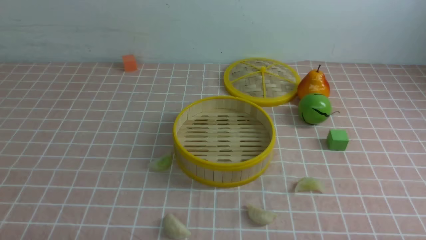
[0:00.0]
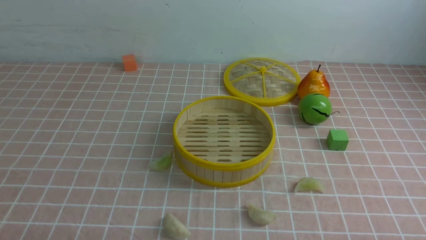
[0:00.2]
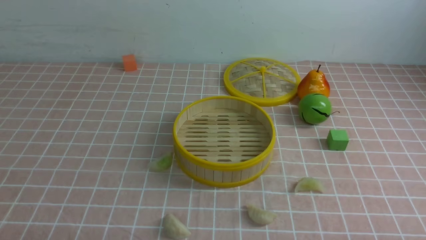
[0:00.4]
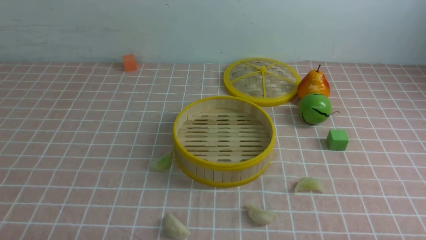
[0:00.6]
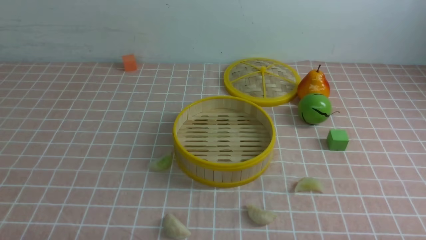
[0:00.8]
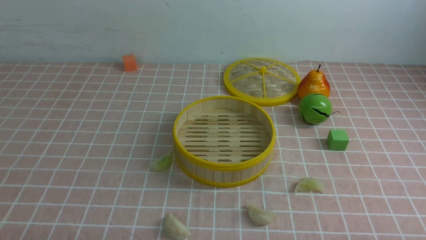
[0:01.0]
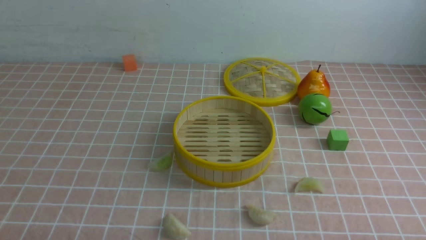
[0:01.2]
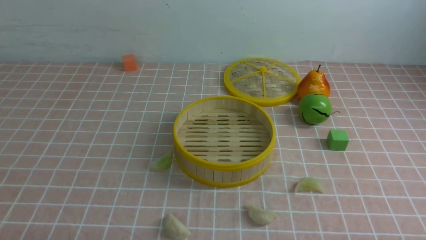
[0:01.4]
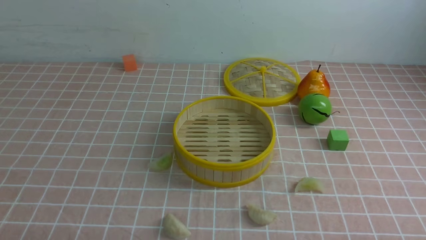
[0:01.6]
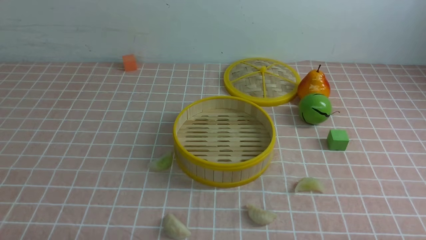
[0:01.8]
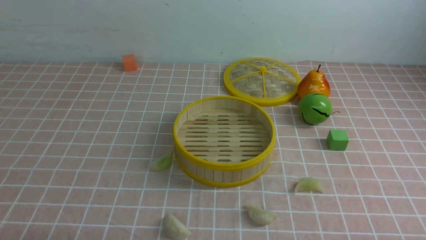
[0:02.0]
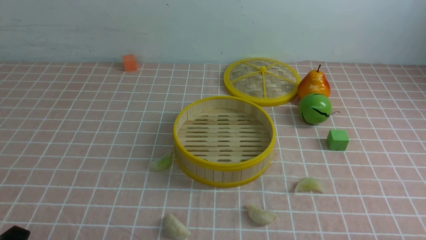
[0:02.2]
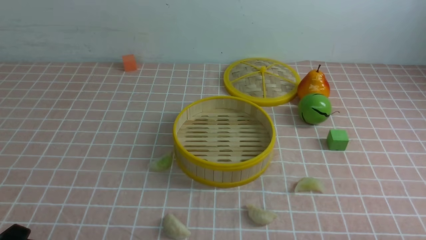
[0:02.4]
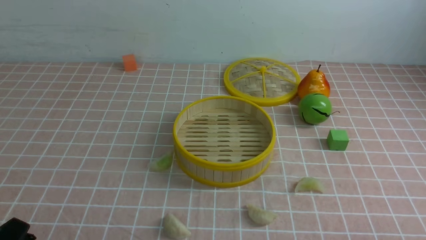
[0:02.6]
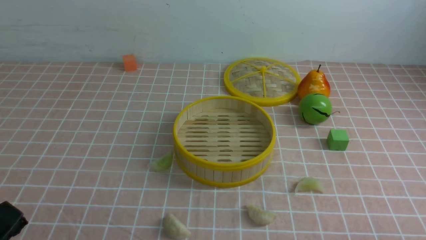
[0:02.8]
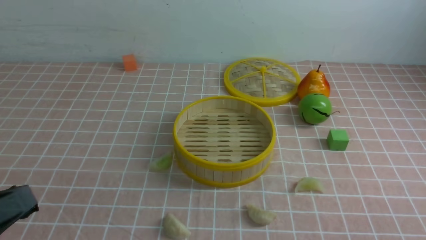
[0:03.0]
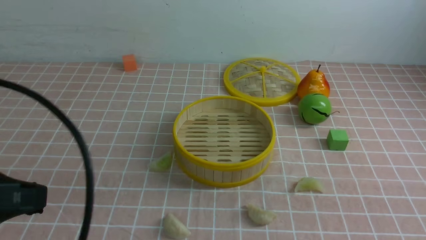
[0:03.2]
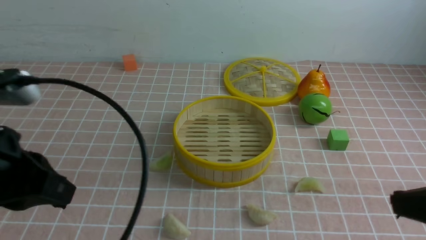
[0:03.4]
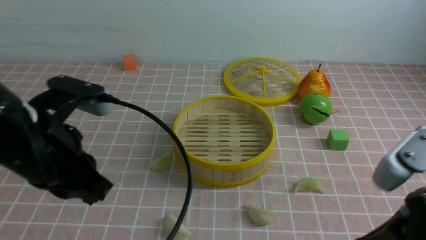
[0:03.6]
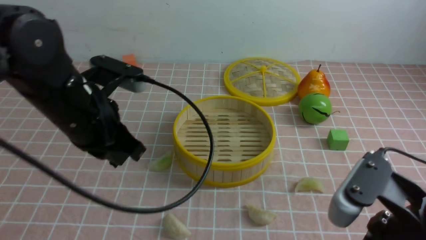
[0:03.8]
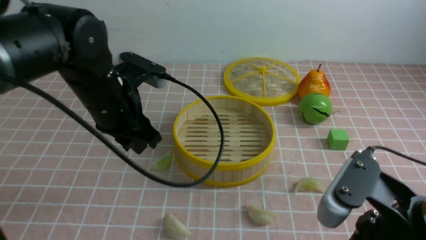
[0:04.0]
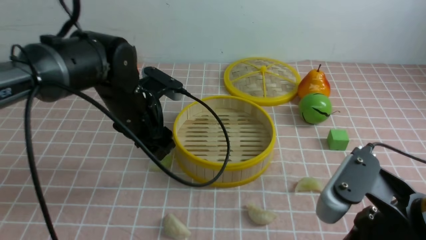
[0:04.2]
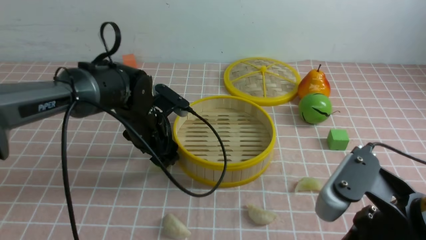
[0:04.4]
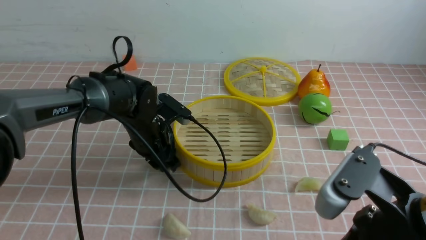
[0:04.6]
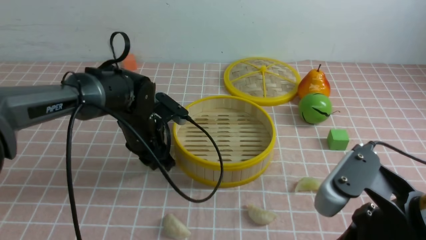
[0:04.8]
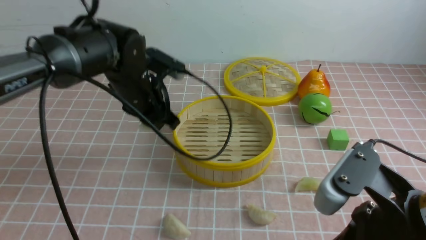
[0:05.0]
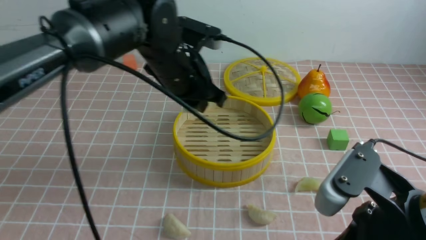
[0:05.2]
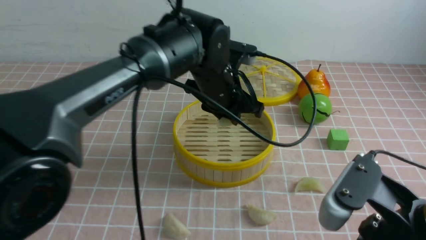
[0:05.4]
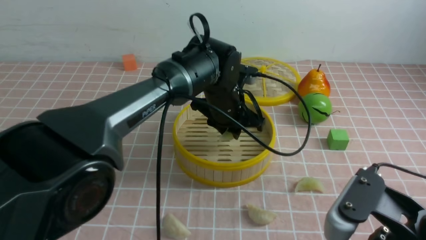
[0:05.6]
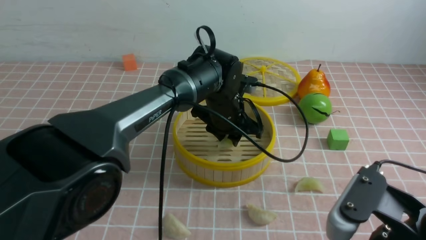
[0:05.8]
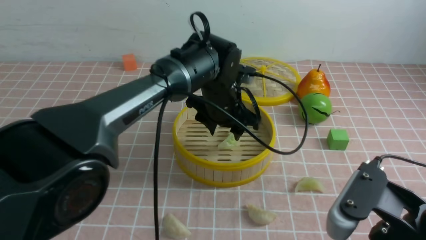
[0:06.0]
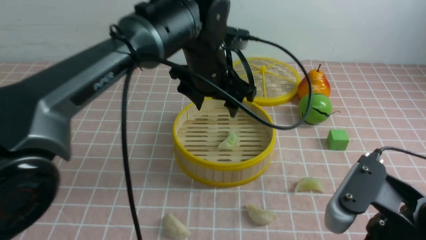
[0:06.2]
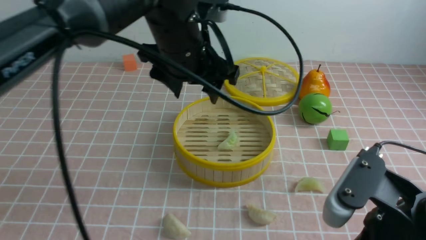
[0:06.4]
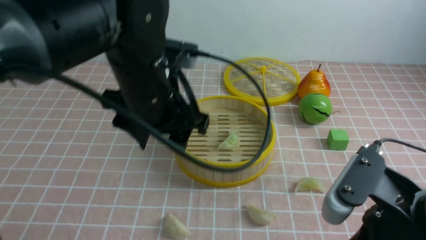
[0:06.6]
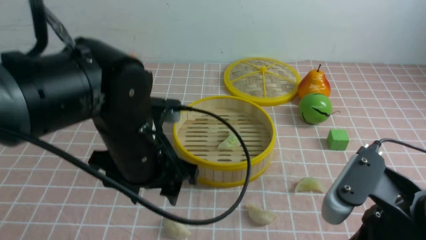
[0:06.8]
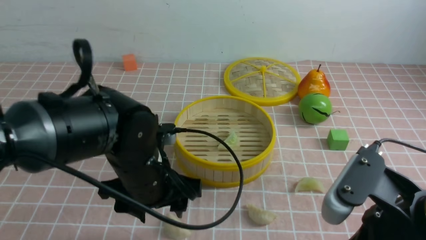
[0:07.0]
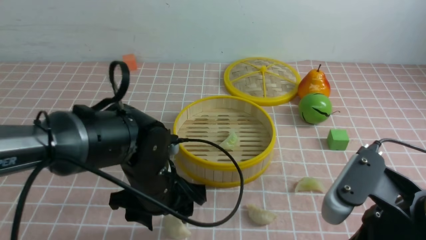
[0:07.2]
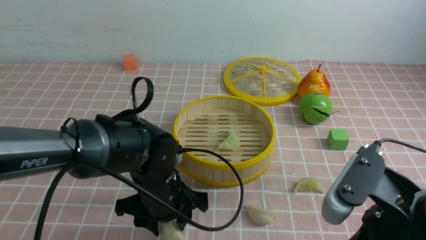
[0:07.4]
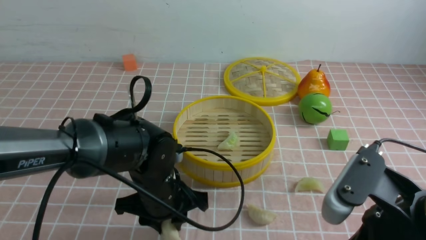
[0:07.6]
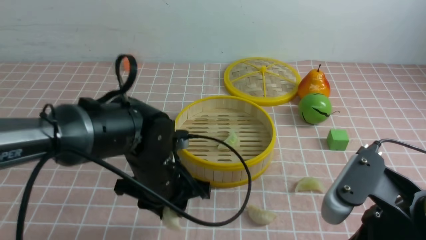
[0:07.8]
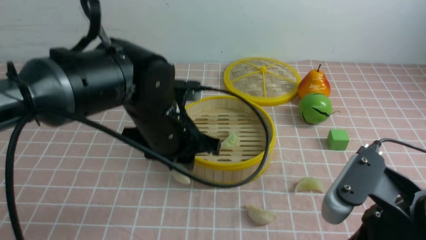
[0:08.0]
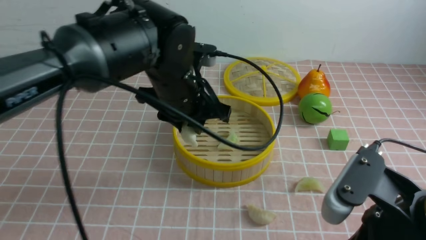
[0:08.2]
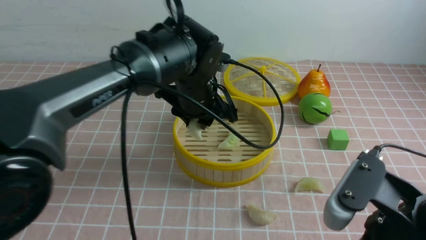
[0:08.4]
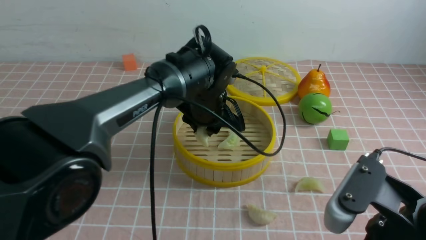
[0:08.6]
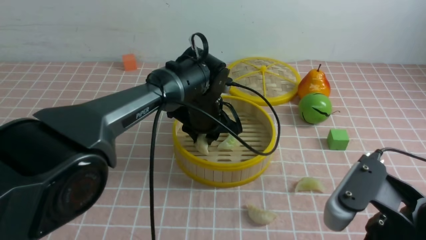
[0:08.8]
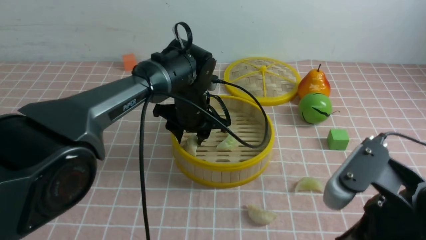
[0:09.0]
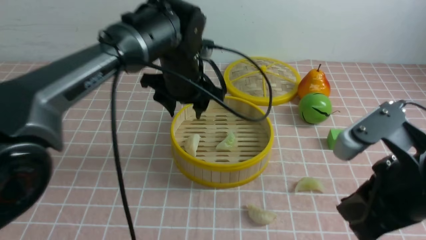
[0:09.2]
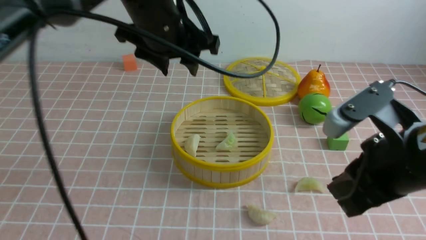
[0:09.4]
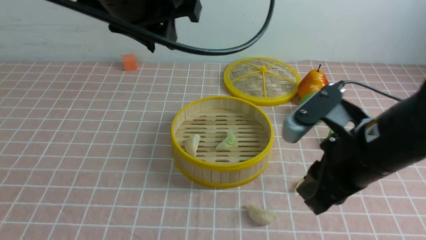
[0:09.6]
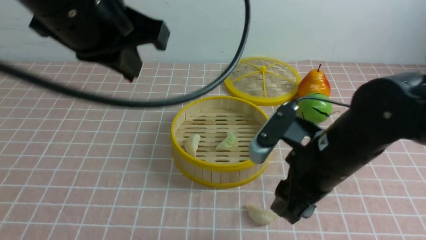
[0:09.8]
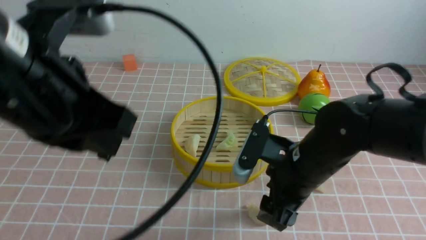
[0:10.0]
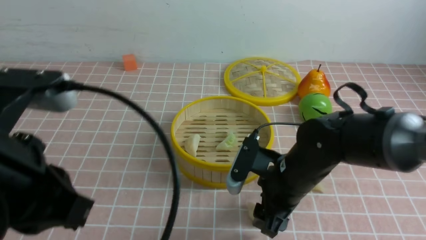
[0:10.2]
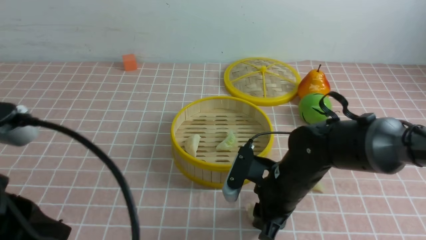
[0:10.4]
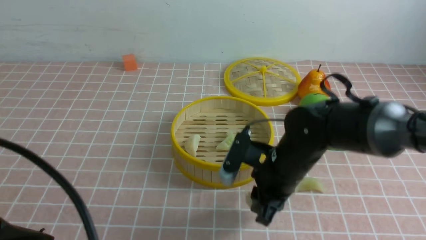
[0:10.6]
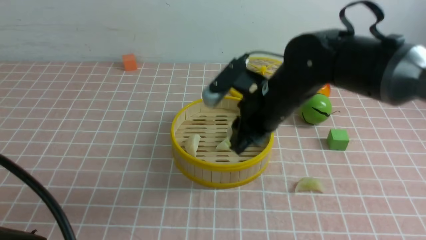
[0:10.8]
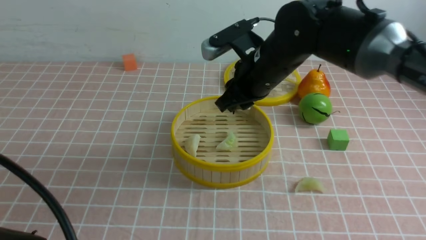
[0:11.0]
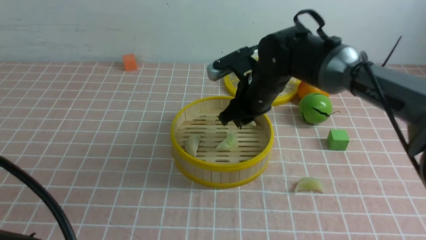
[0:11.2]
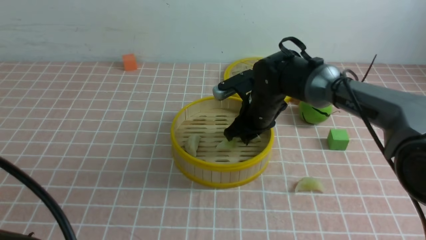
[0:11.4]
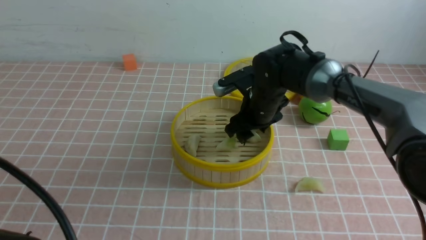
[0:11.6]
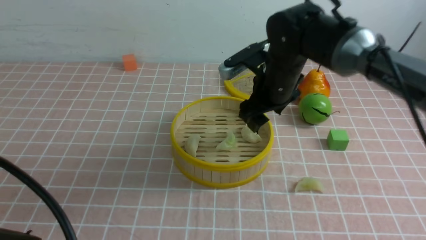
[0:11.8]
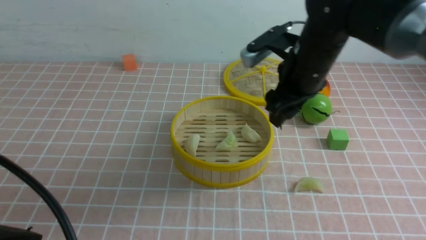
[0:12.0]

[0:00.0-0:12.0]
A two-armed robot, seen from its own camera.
Task of the whole recording: put the dumplings into the steamer on the table with the pink tablecloth.
Step, 0:00.0 to 0:04.8: use the left arm to grab a dumpling.
Step, 0:05.0 to 0:05.8: use the left arm to put the dumpling into the steamer.
Step, 0:06.0 to 0:07.6: use the left arm to grab a dumpling.
Step, 0:08.0 to 0:08.8: use the left arm to put the dumpling into the steamer.
Step, 0:09.2 to 0:10.4: use the right arm to grab a dumpling.
Step, 0:10.6 to 0:11.4: use the right arm to put the dumpling into the steamer.
0:00.0 to 0:01.6: The two grippers keep their place.
0:01.6 to 0:03.0: The left gripper is displaced upward by approximately 15 cm, and closes.
0:03.0 to 0:04.4: The left gripper goes about 35 cm forward and downward, and opens its fingers, while the right gripper moves to the left and forward, about 15 cm.
0:04.4 to 0:06.0: The left gripper is displaced to the right and upward by approximately 15 cm, and closes and opens again.
0:06.0 to 0:07.6: The left gripper travels backward, downward and to the left by approximately 20 cm.
0:07.6 to 0:09.0: The left gripper travels forward and upward by some 15 cm.
0:09.0 to 0:10.4: The right gripper goes some 20 cm forward, downward and to the left, and opens. The left gripper shifts roughly 35 cm backward and to the left, and closes.
0:10.4 to 0:12.0: The right gripper is displaced upward and forward by some 15 cm, and opens up.

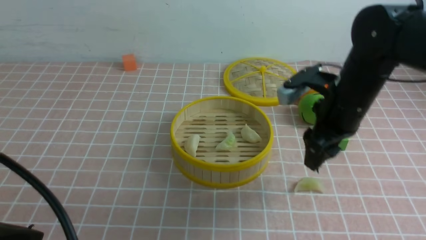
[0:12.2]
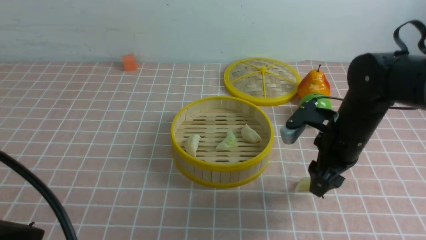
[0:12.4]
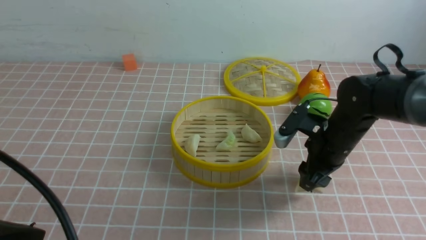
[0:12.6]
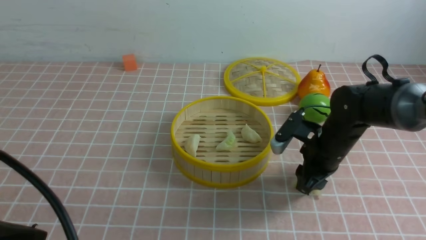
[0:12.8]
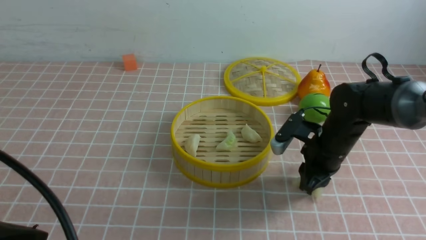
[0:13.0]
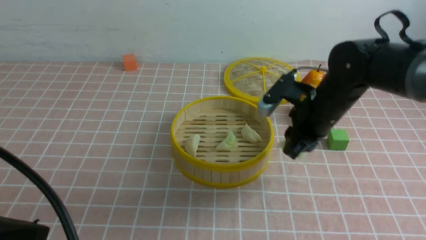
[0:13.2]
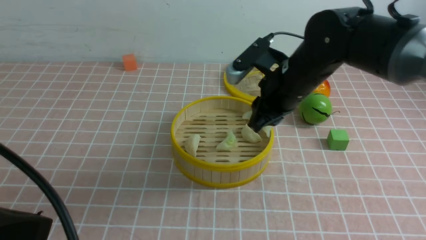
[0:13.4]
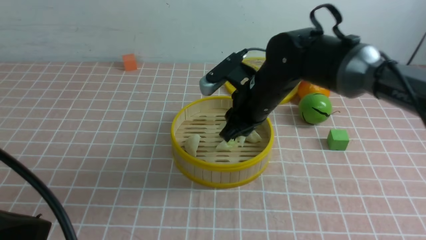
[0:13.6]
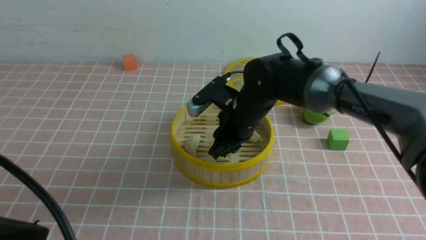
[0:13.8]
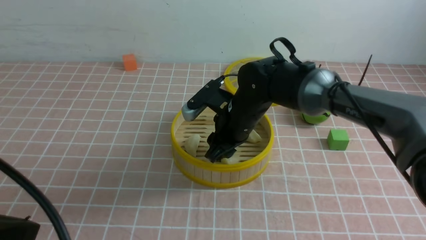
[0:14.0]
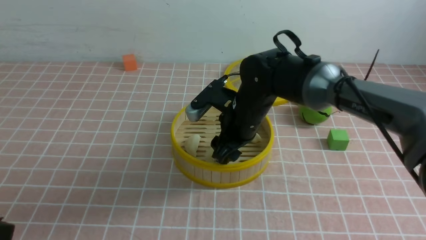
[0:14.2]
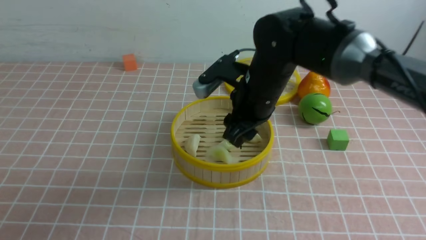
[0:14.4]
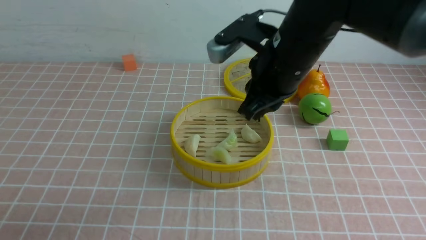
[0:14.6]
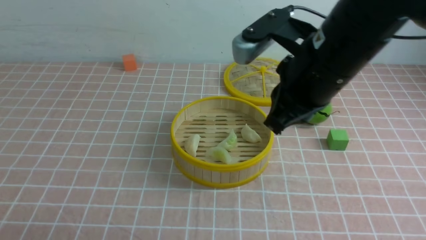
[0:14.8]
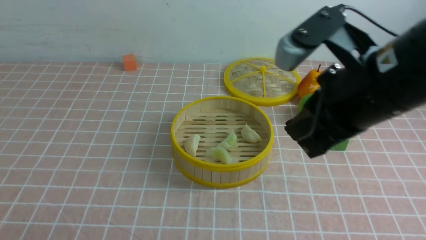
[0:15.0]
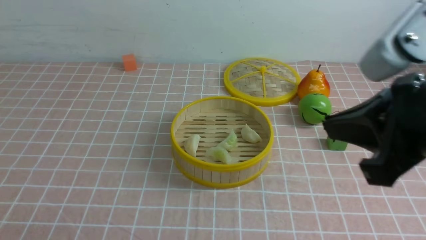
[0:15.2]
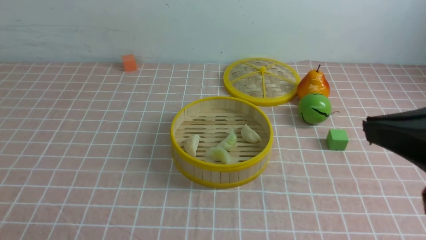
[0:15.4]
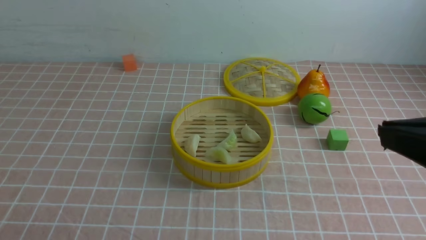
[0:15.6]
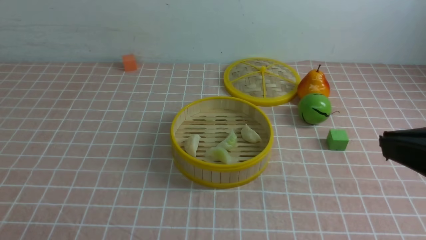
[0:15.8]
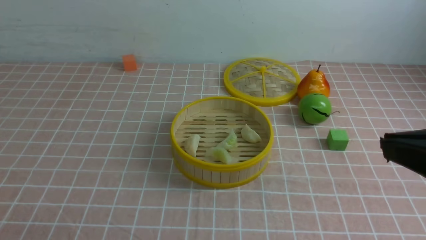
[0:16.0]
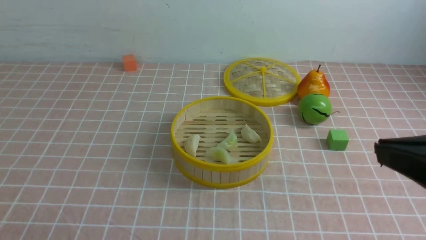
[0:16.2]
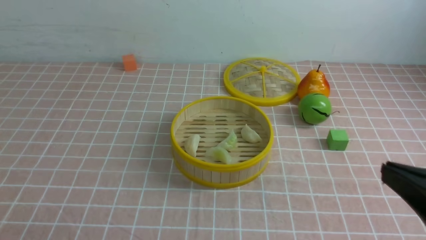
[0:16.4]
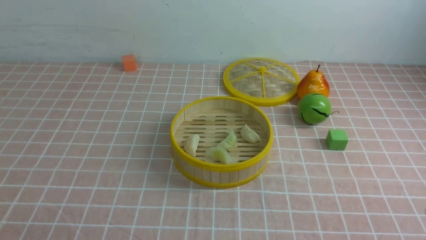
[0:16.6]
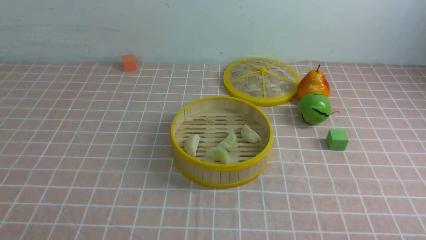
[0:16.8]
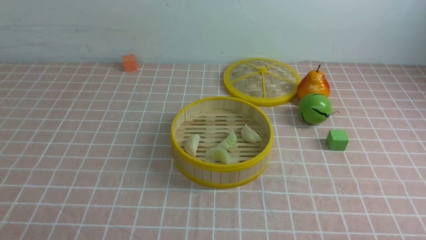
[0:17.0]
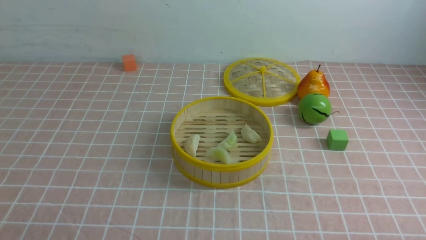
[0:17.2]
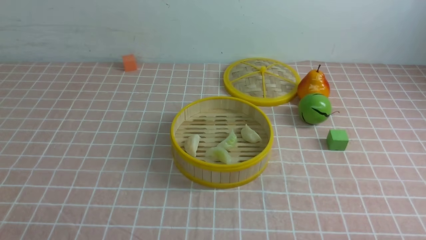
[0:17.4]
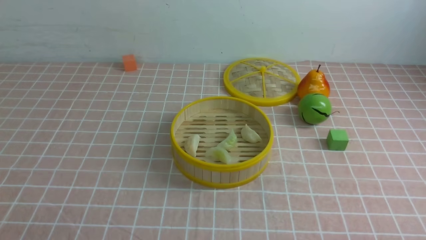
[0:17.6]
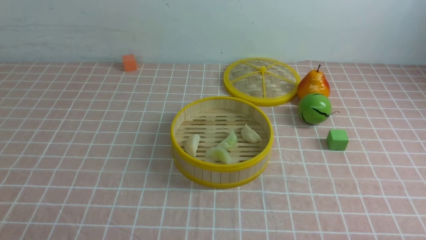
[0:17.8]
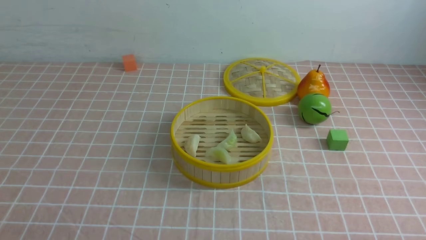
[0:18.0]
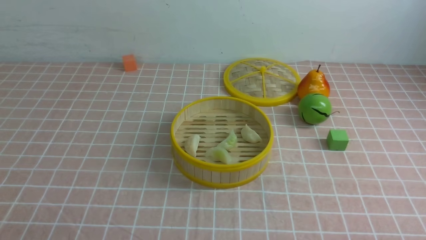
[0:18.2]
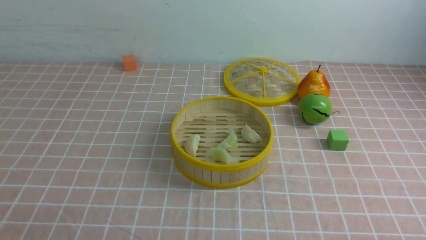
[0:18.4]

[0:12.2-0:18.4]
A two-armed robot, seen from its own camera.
Task of the whole recording: put the dumplings into the steamer on the table with the pink tablecloth.
Step, 0:12.2 to 0:13.0: use the right arm to grab a dumpling.
Step, 0:13.2 to 0:14.4: use the right arm to put the dumpling into the steamer.
0:12.2 to 0:13.8: The right gripper is displaced to the left by approximately 15 cm, and closes.
0:13.8 to 0:15.4: The left gripper shifts some 10 cm downward, backward and to the left. Meanwhile the right gripper is displaced backward, upward and to the right by roughly 35 cm, and closes.
0:15.4 to 0:16.8: The right gripper moves downward and to the right, some 20 cm.
